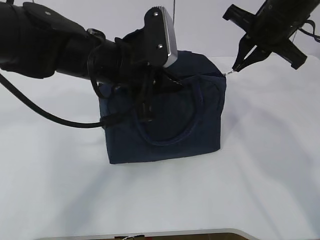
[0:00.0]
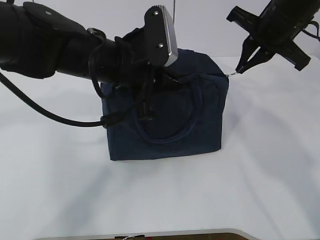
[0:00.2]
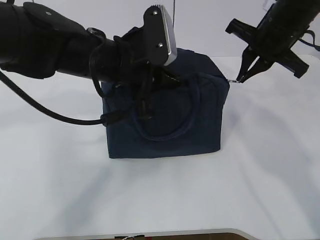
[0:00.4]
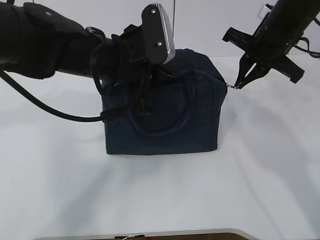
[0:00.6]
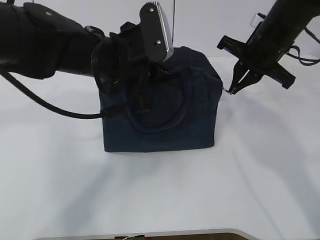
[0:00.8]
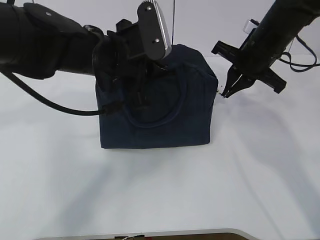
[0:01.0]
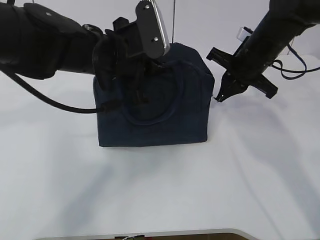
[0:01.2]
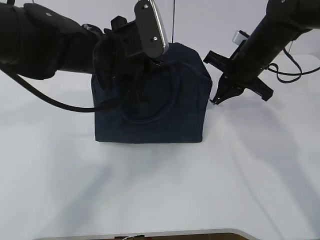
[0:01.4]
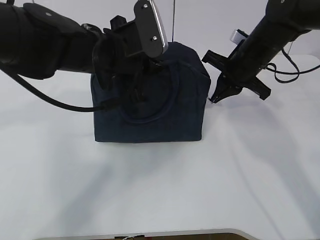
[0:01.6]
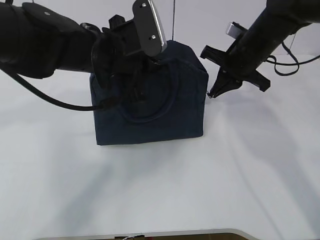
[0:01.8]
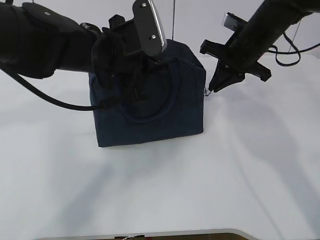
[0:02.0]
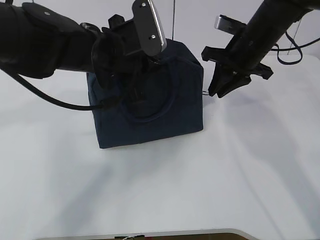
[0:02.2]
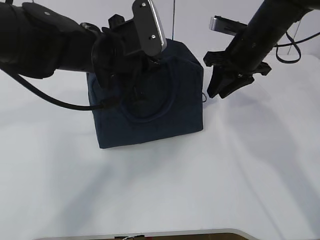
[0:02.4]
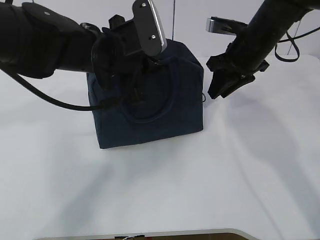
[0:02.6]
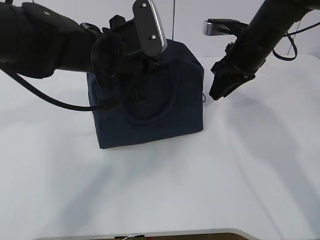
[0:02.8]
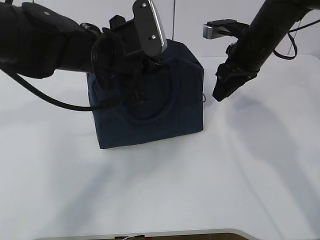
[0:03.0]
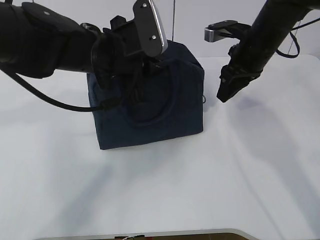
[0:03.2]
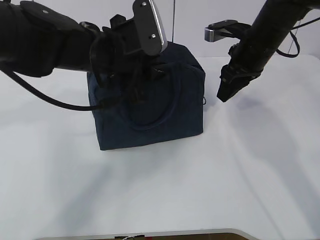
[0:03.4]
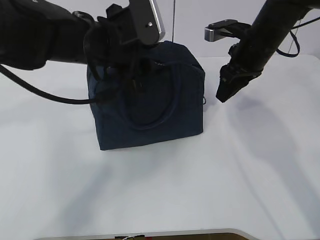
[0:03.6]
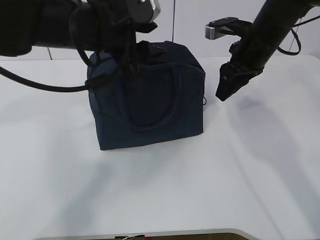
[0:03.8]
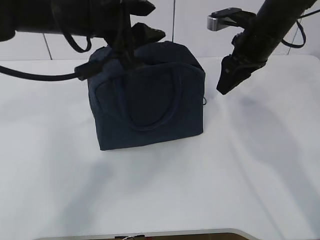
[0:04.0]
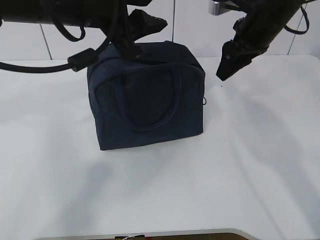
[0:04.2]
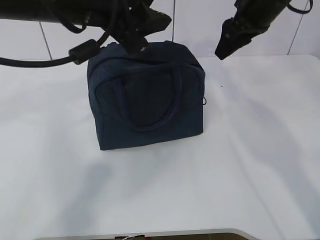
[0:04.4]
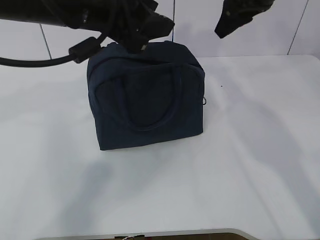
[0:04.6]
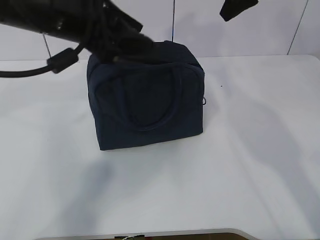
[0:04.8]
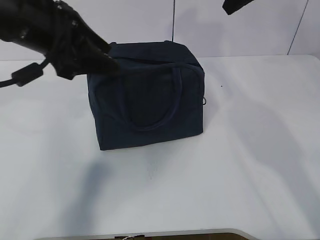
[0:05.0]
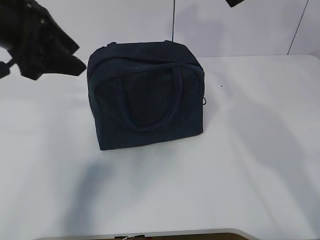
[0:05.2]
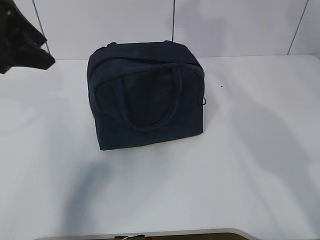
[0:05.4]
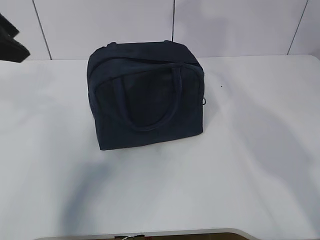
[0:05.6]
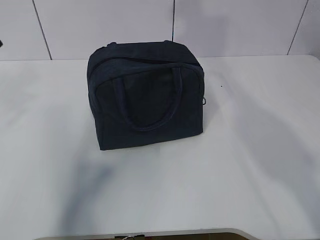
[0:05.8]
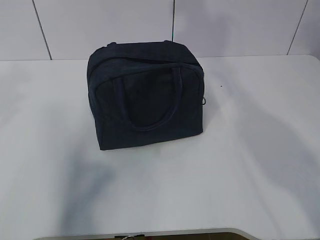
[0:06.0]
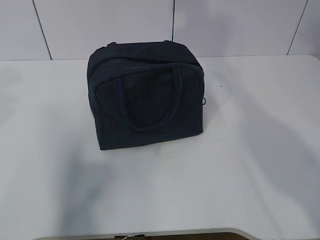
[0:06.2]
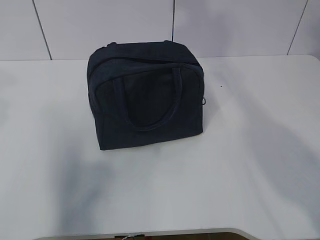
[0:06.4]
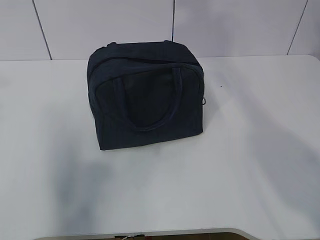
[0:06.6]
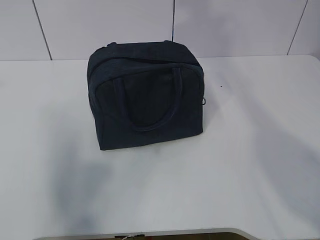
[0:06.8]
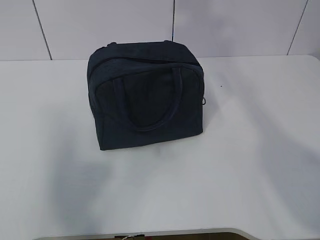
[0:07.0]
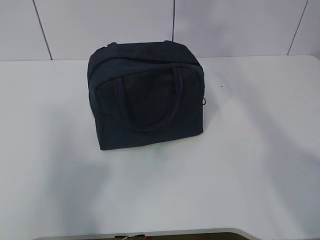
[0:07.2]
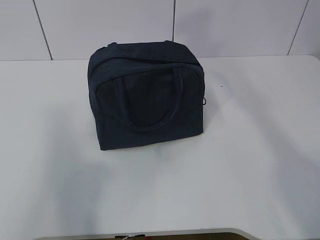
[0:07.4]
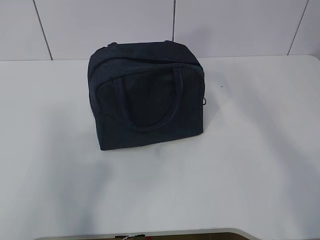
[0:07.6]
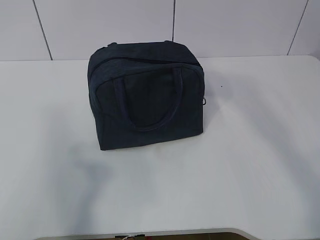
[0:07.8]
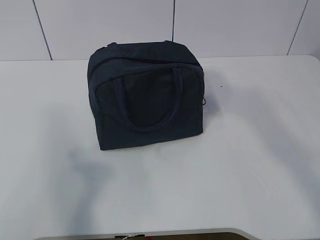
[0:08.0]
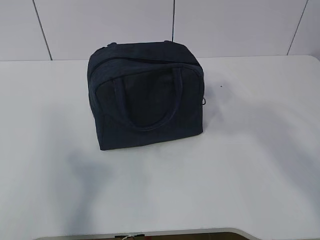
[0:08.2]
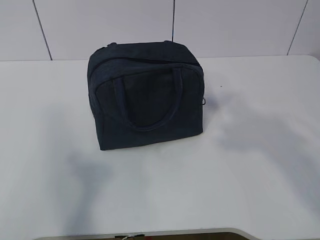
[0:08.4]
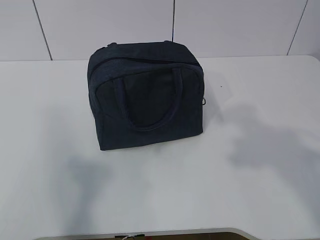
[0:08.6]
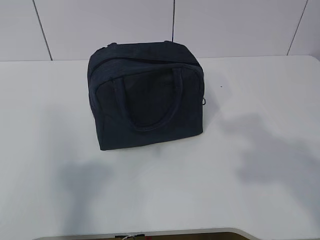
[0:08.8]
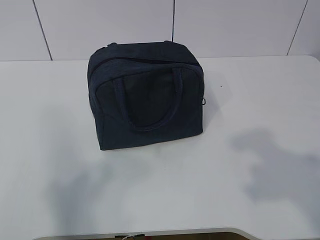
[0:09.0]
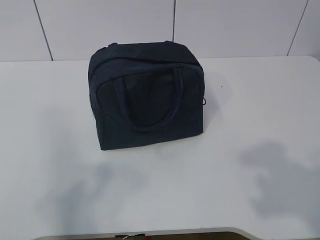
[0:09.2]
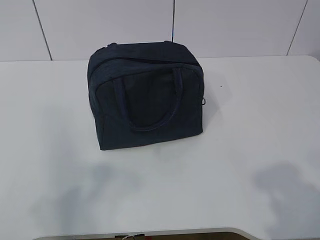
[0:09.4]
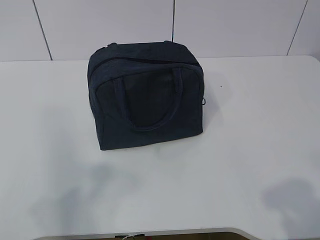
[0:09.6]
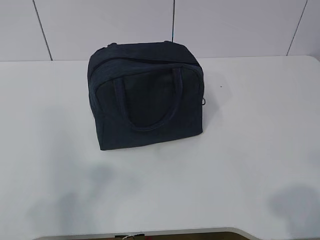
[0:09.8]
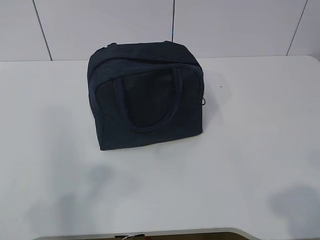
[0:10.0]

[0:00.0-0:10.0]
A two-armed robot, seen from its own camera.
0:00.0 to 0:01.4: The right gripper goes about 10 cm downward.
0:01.4 to 0:02.8: The right gripper opens.
0:02.8 to 0:04.2: The left gripper shifts some 10 cm upward, and opens.
0:04.2 to 0:05.8: The right gripper heads upward, covering some 20 cm, while the left gripper moves to the left, some 15 cm.
0:05.8 to 0:07.2: The left gripper travels backward and to the left by approximately 15 cm.
0:08.6 to 0:10.0: The left gripper shifts approximately 5 cm downward. The right gripper heads downward and backward, covering about 15 cm.

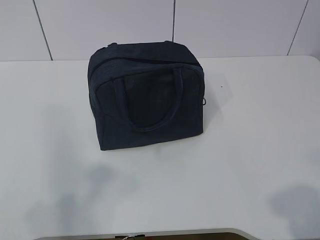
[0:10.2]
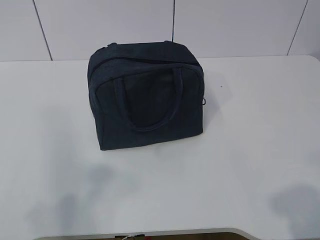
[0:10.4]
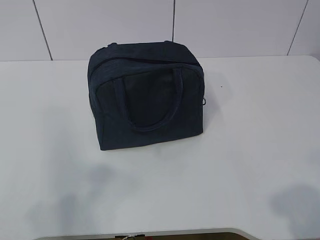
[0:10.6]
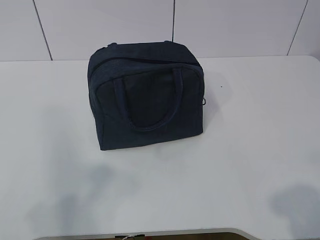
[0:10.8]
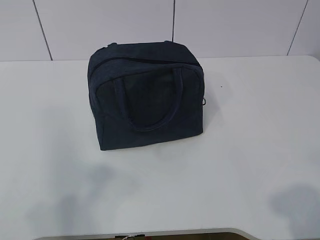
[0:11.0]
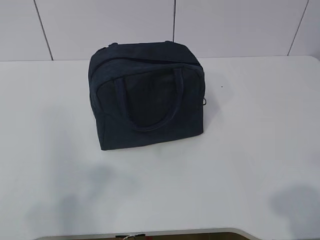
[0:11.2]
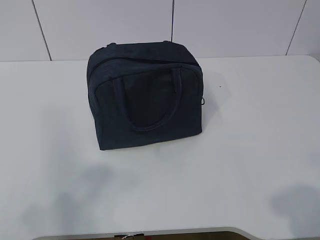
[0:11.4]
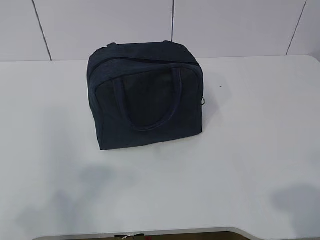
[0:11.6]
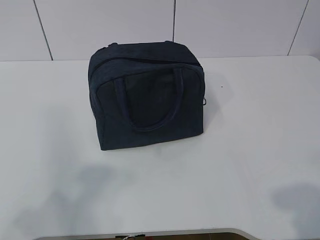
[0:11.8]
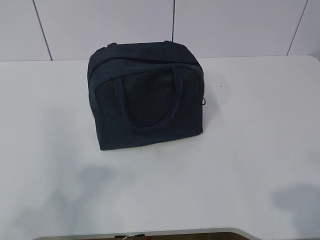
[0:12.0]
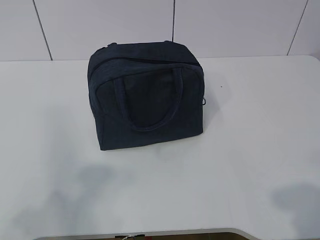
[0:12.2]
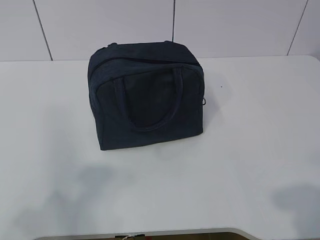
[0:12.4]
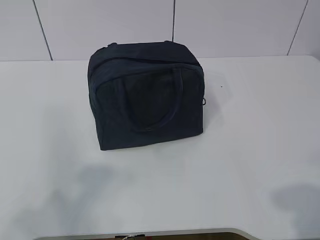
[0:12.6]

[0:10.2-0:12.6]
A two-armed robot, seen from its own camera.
0:10.2 to 0:12.6: There are only small adjustments of the grippers.
